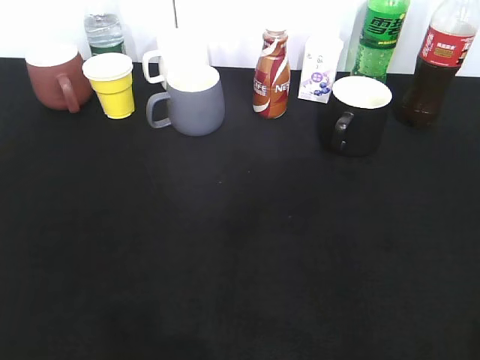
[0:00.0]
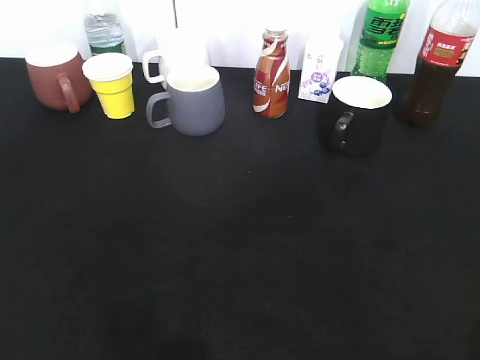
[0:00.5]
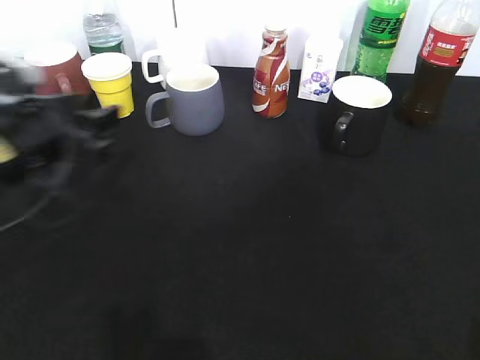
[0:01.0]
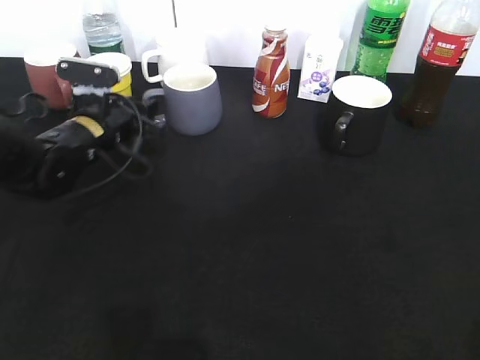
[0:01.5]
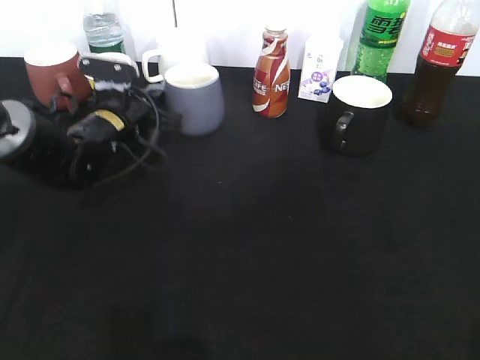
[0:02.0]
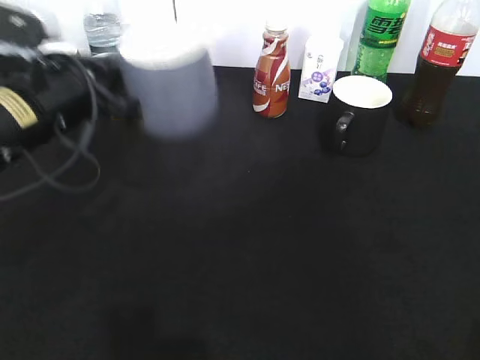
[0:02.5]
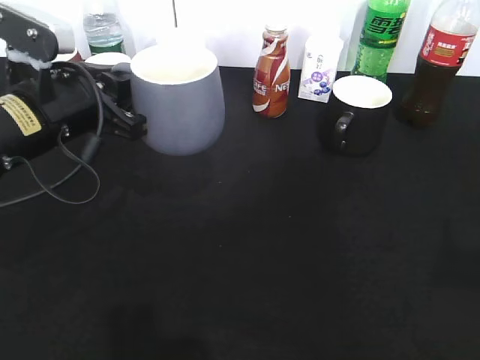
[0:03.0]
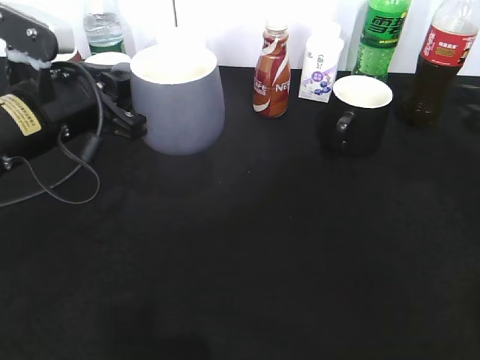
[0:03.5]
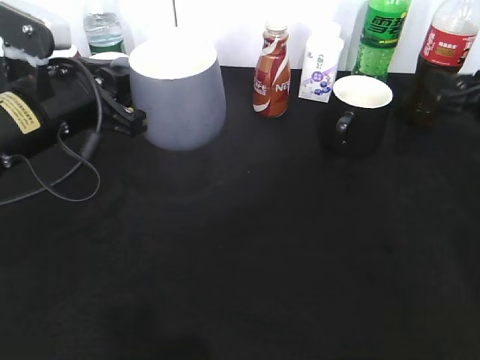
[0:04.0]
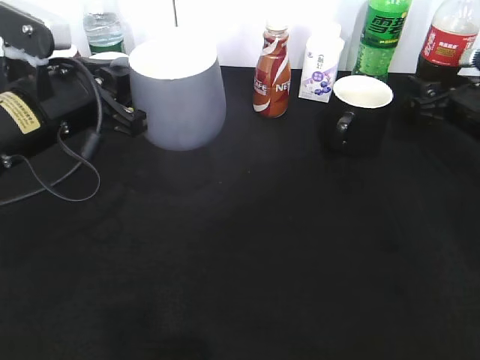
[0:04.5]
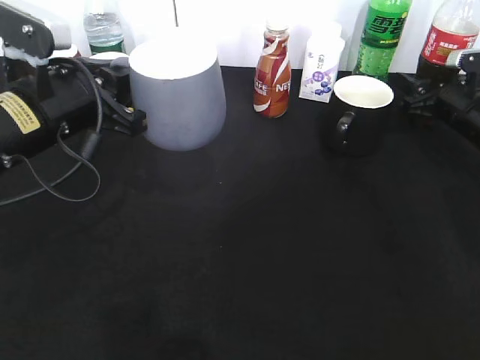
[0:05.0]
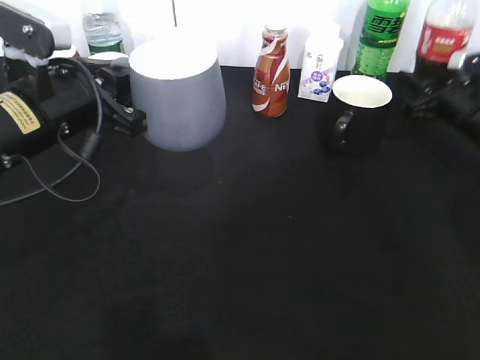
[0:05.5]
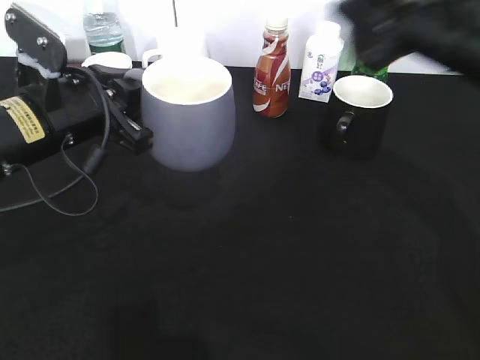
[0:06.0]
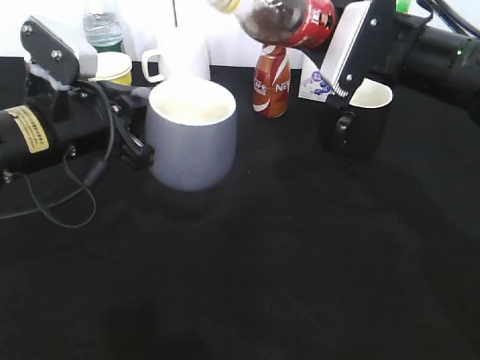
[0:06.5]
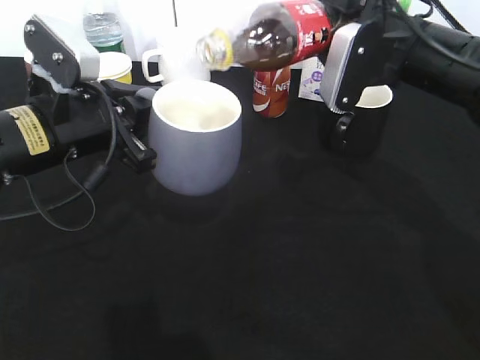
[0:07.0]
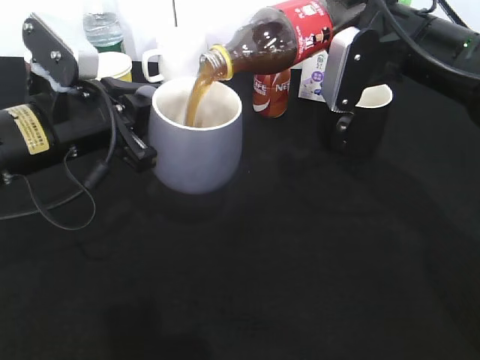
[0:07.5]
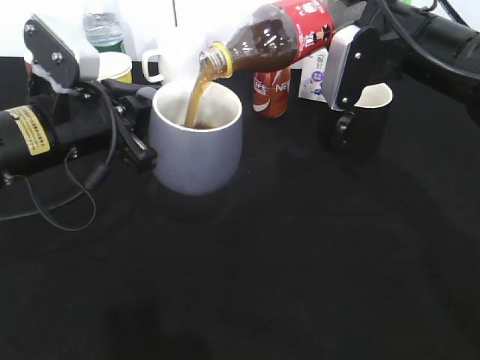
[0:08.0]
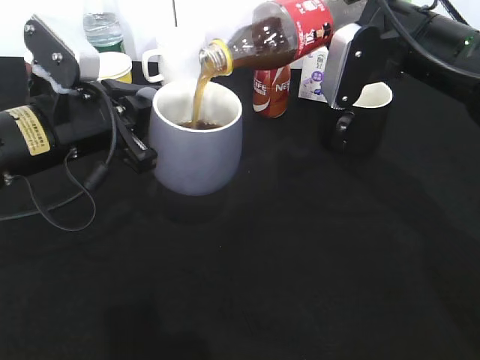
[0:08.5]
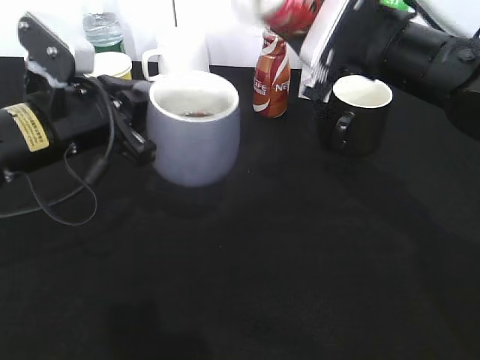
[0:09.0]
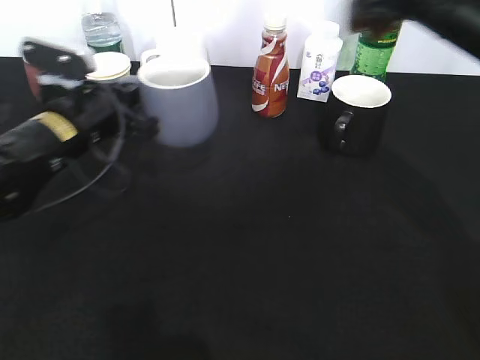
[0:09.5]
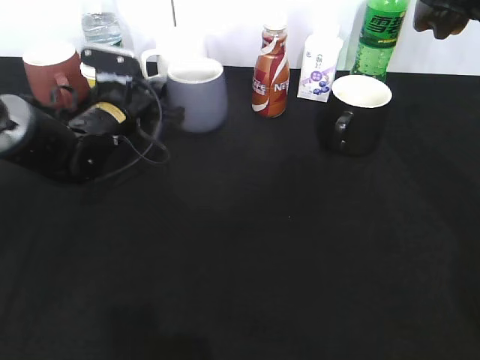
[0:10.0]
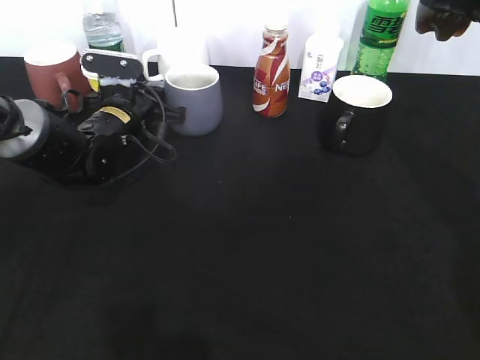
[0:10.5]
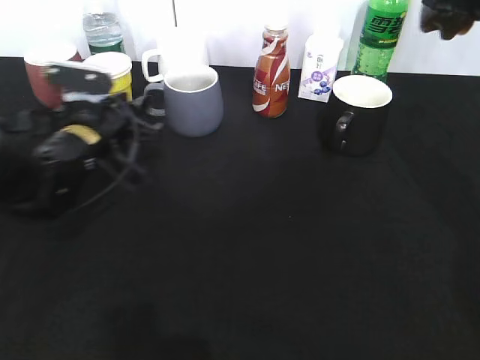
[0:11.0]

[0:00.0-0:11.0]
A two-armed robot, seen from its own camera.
Step, 0:00.0 to 0:02.0: Grasp the grey cup with left gripper.
Step, 0:03.0 to 0:05.0: Grasp the bottle with cola with right gripper.
Step, 0:05.5 to 0:08.0: Pour the cola from bottle to cup with right gripper.
Step, 0:08.5 to 0:11.0: Place the grey cup on the table with left gripper.
0:00.0 to 0:02.0: The left gripper is displaced forward and downward by some 40 cm, and closes.
0:02.0 to 0:03.5: The left gripper heads backward and upward, covering roughly 15 cm, while the right gripper is displaced forward by roughly 30 cm.
0:03.5 to 0:05.5: The right gripper travels forward and downward by about 15 cm, and closes its fingers.
0:05.5 to 0:07.5: The right gripper moves to the left, upward and backward, some 20 cm.
0:09.0 to 0:11.0: The right gripper is displaced to the right by approximately 15 cm, while the left gripper goes about 10 cm downward and forward, and opens its fingers.

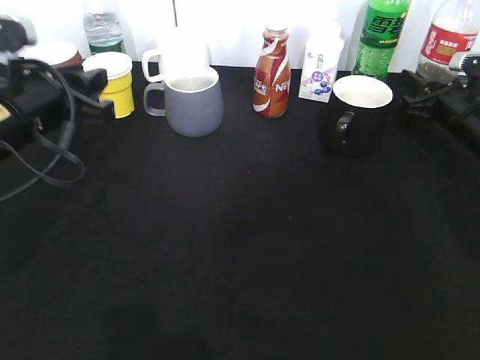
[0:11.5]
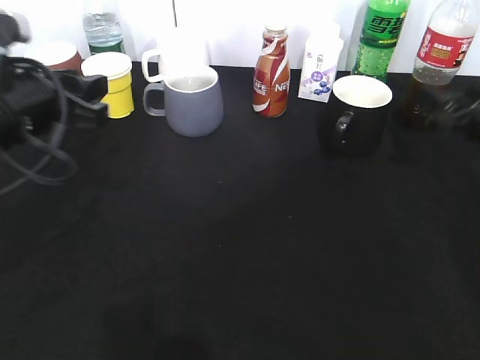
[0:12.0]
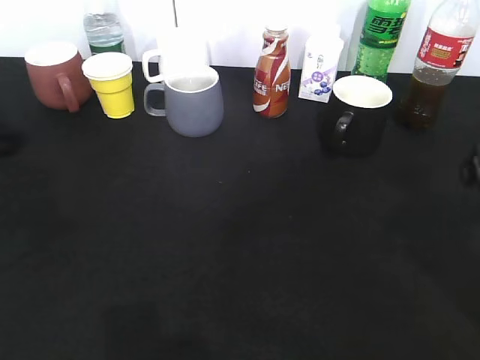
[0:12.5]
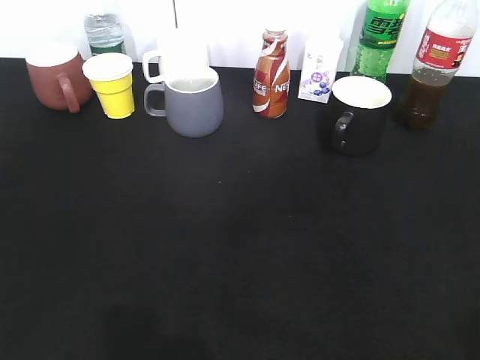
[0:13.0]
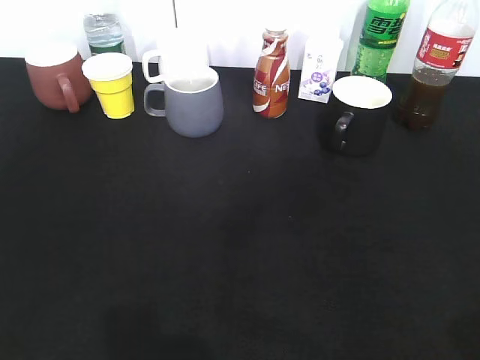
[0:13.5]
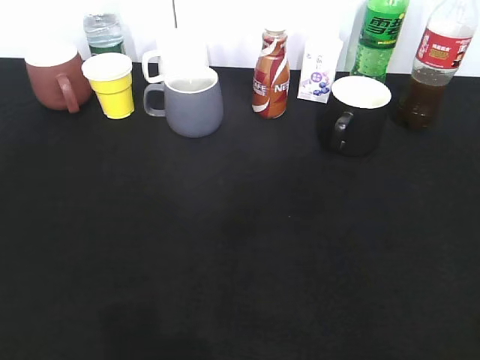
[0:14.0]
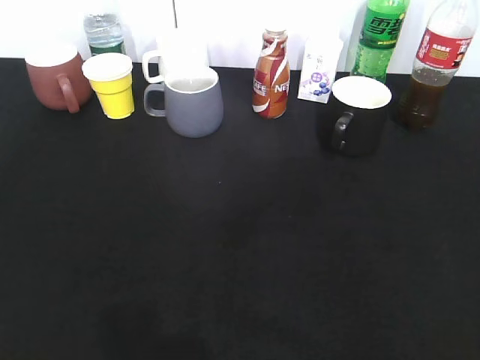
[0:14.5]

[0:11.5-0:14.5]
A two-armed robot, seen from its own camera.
Step, 0:11.5 to 0:12.0: Place the cola bottle on the table with right gripper.
0:11.5 to 0:13.0: The right gripper travels backward and upward by about 50 cm, and opens; the left gripper heads backward and to the left, covering some 25 cm.

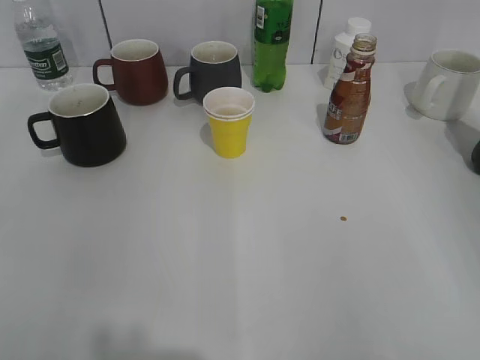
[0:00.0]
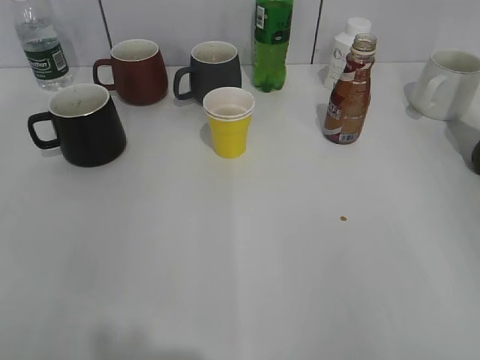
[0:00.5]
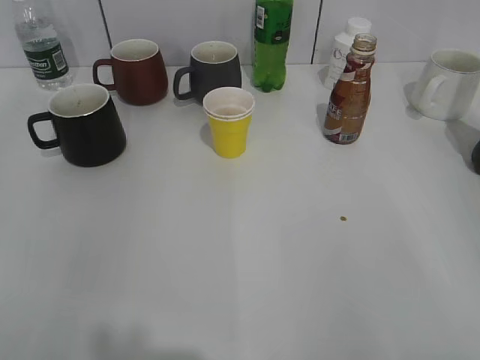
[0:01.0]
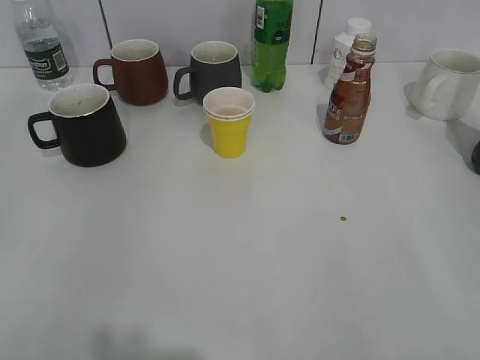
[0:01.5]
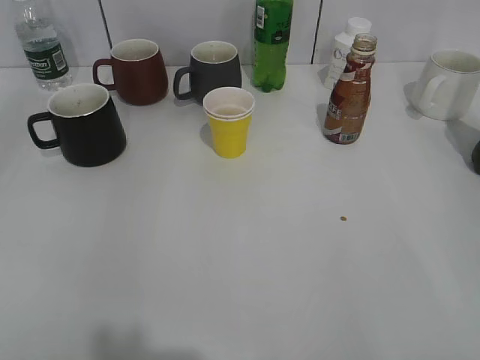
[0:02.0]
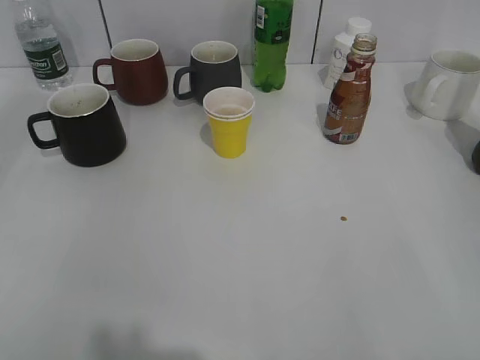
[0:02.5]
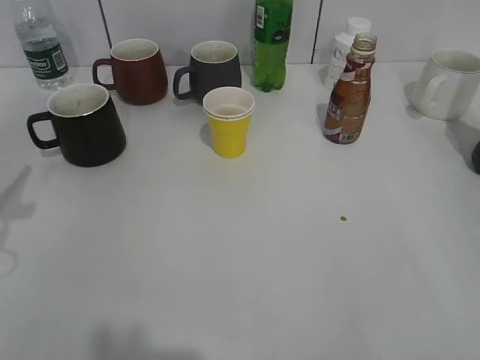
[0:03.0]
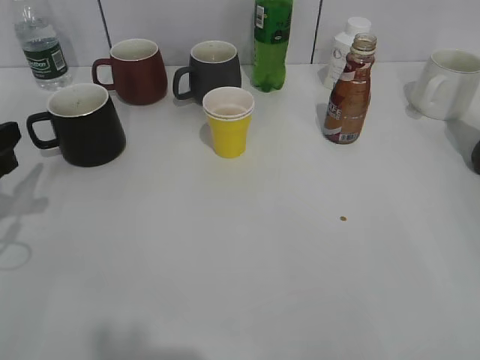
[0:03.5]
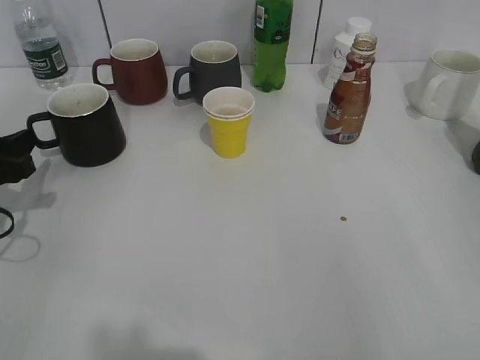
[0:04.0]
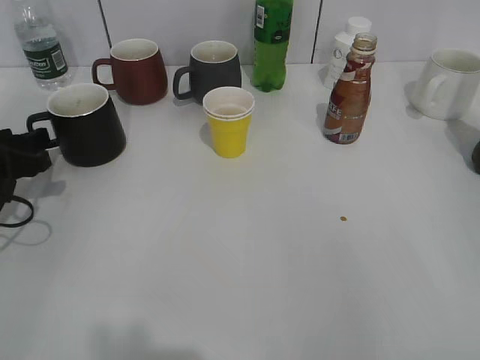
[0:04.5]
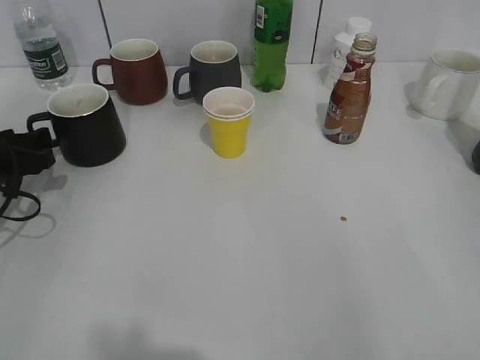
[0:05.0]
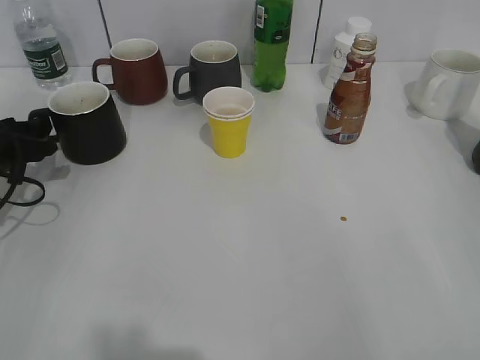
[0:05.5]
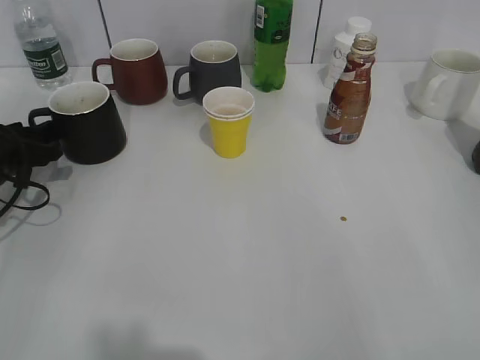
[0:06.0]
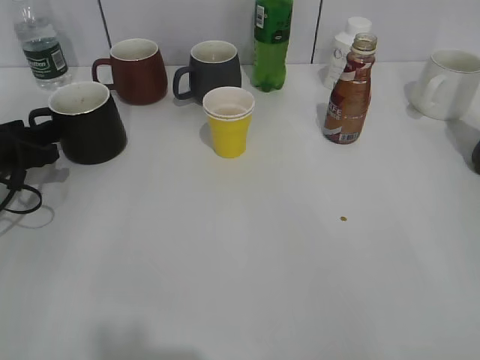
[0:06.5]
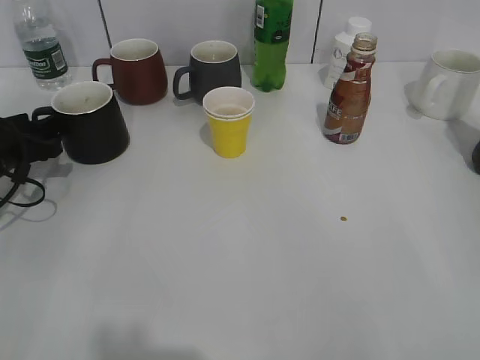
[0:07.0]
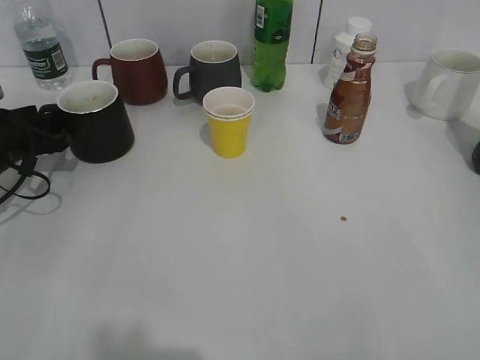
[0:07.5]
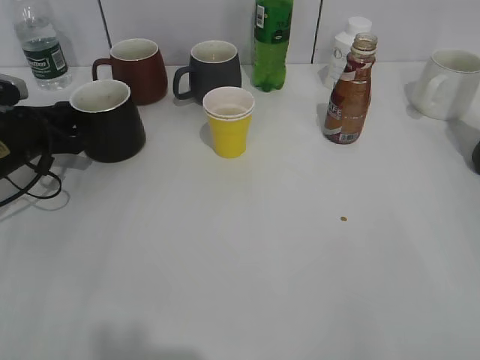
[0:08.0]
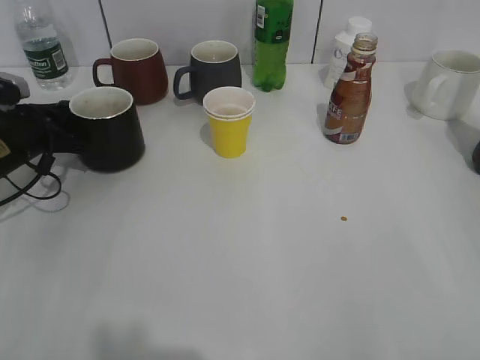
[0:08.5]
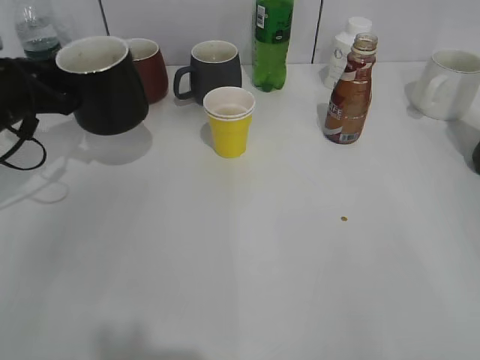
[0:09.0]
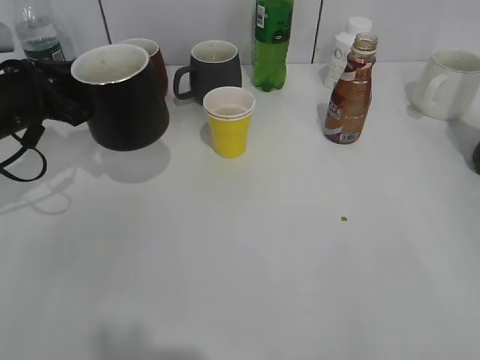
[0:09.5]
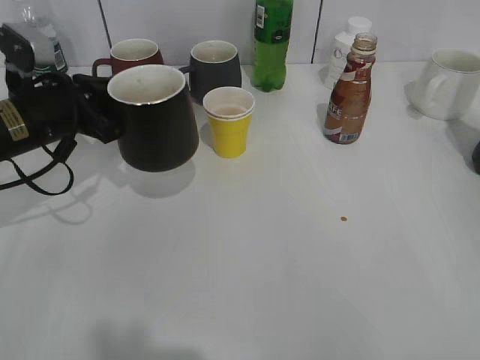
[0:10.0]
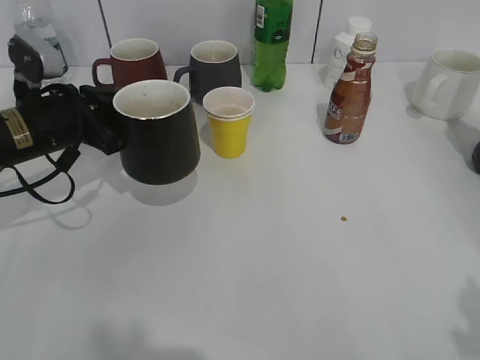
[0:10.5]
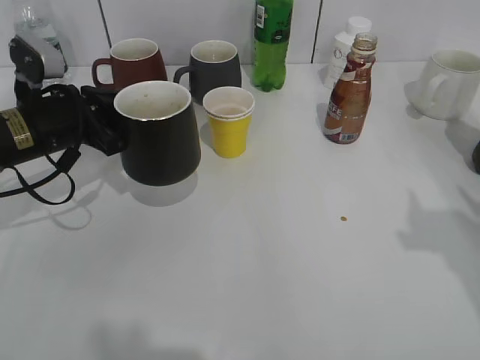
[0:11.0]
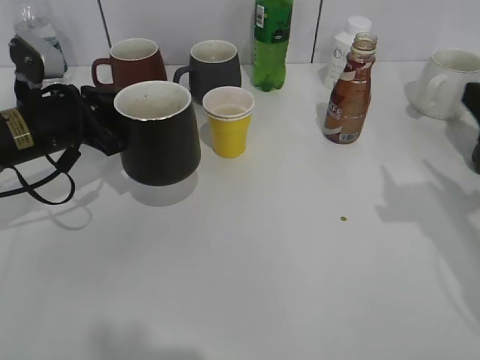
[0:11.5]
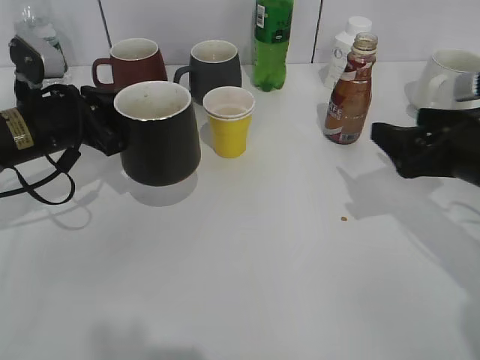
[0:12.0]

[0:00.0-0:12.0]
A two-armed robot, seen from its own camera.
Step, 0:01.5 to 0:08.0: Grasp the black cup with left gripper.
Step, 0:09.0 to 0:10.0: Lift the black cup with left gripper.
0:02.0 to 0:04.0: The left gripper goes some 25 cm downward and forward.
0:04.0 to 0:06.0: The left gripper heads forward, covering roughly 5 cm.
0:06.0 to 0:08.0: The left gripper closes.
0:08.0 to 0:10.0: The left gripper travels to the right and upward by some 10 cm.
0:10.0 to 0:12.0: The right gripper travels forward by some 25 cm, and opens its fingers.
